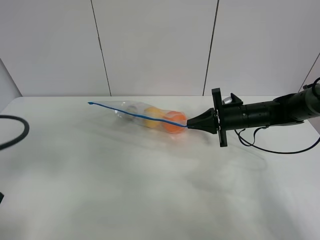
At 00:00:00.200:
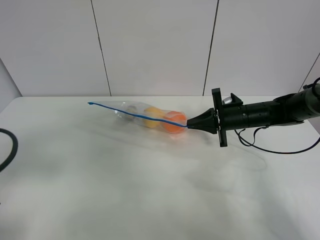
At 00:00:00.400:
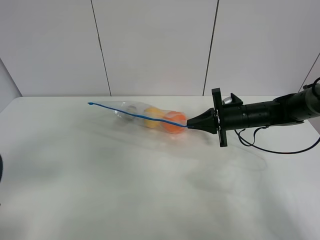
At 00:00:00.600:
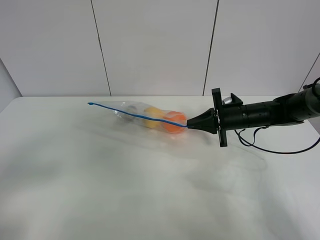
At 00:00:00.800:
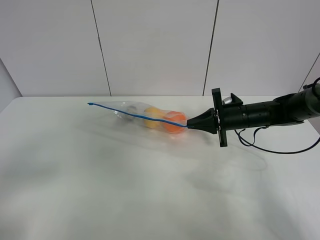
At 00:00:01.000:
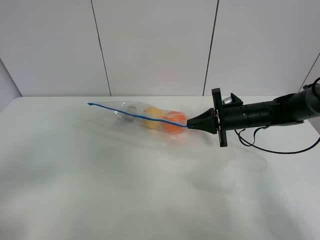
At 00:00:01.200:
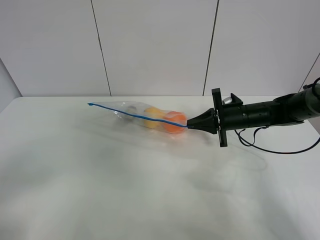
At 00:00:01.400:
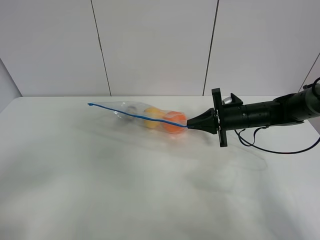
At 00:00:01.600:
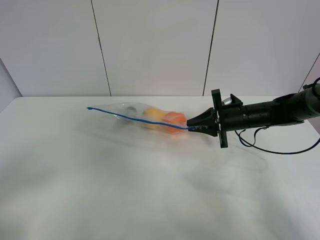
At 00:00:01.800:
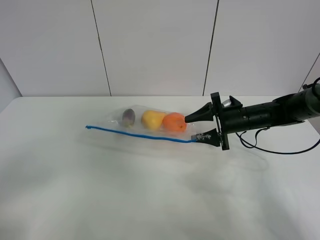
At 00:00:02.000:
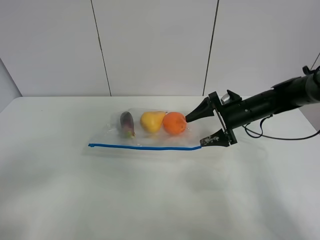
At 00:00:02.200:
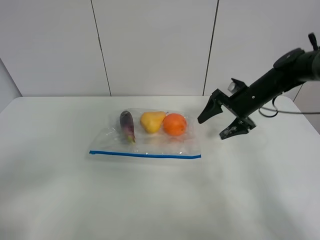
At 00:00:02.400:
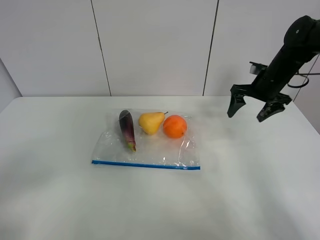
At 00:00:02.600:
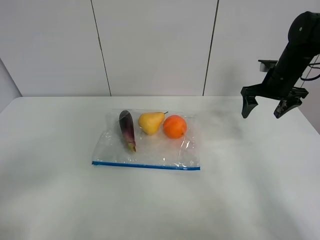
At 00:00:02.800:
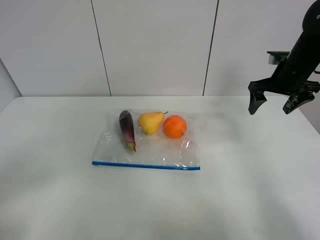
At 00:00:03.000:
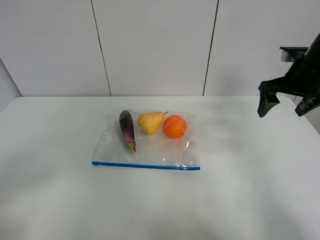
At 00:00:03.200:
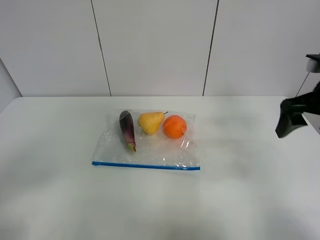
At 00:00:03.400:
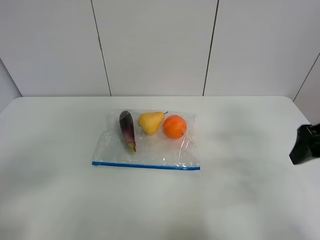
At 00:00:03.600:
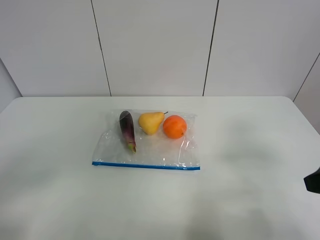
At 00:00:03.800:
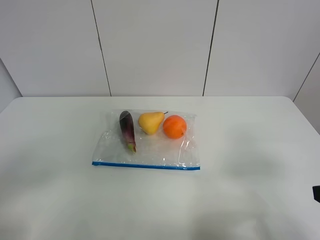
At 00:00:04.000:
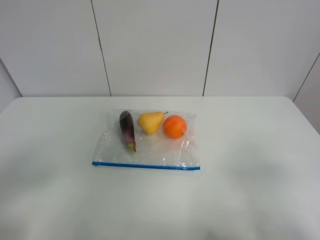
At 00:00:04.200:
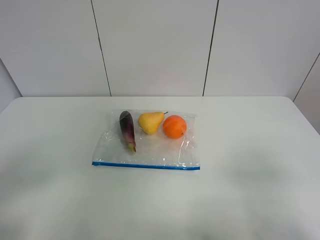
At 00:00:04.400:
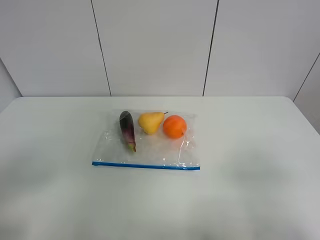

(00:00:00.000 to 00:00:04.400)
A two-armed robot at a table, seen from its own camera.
Step, 00:00:00.000 - 00:00:02.200: Place the fruit bag with right gripper.
00:00:00.000 - 00:00:01.400: The left gripper is displaced backward by about 10 cm.
00:00:01.400 - 00:00:03.000: The right gripper heads upward and to the right, covering approximately 15 cm, and opens.
00:00:03.000 - 00:00:04.400: The right gripper moves backward, about 35 cm.
